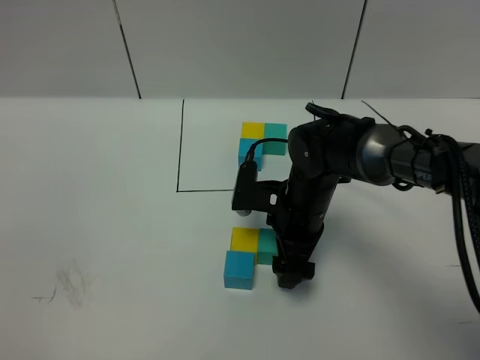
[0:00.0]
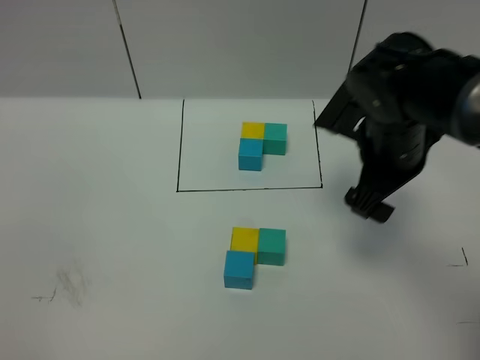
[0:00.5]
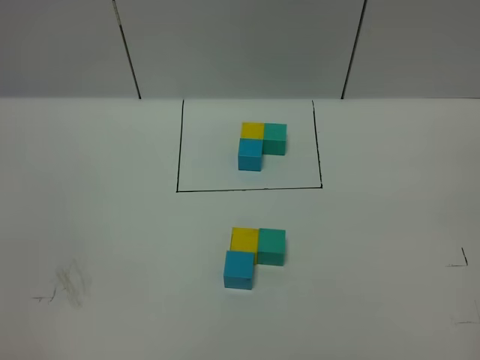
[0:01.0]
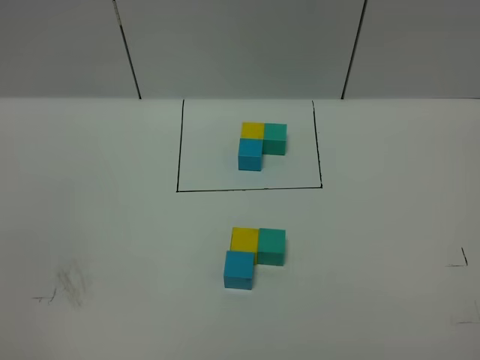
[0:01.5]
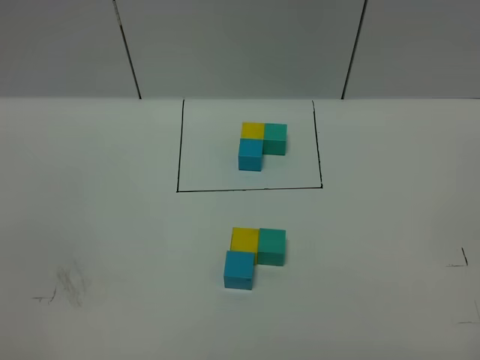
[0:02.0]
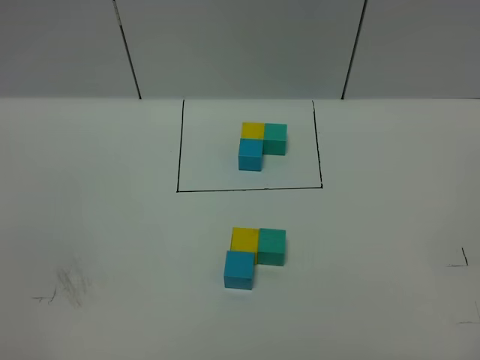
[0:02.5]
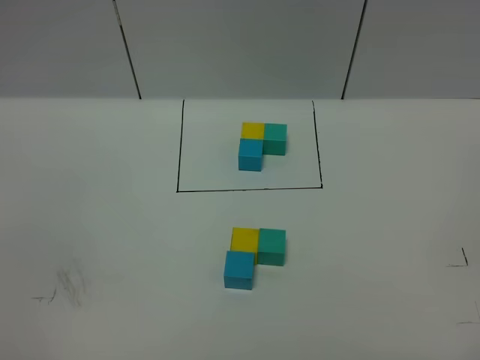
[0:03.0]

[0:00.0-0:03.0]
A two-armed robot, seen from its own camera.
Task of the whole recording: According to the building block template in front, assemble the scattered blocks together.
0:00.0 to 0:01.5: The right gripper is displaced backward, upward and to the right by roughly 50 cm.

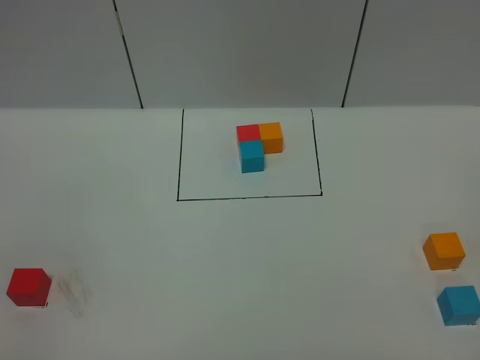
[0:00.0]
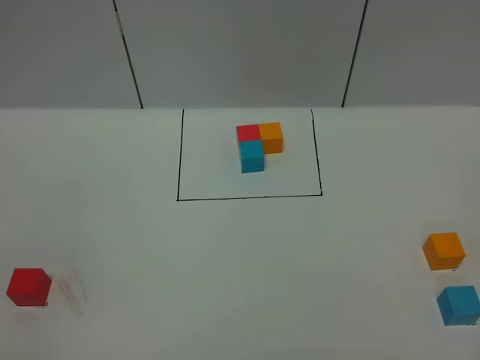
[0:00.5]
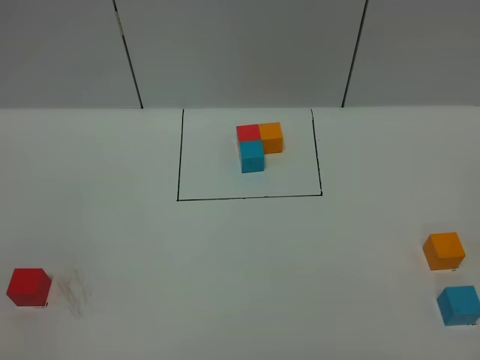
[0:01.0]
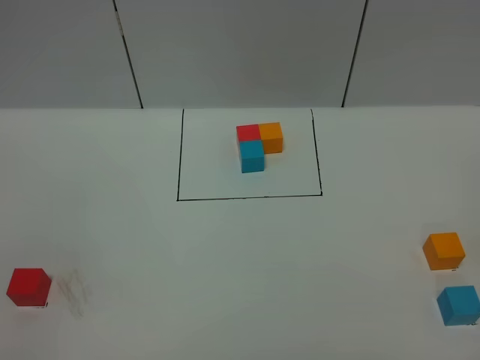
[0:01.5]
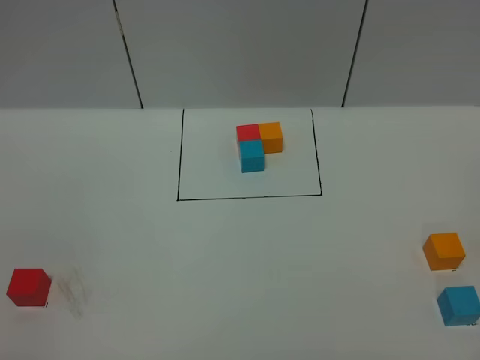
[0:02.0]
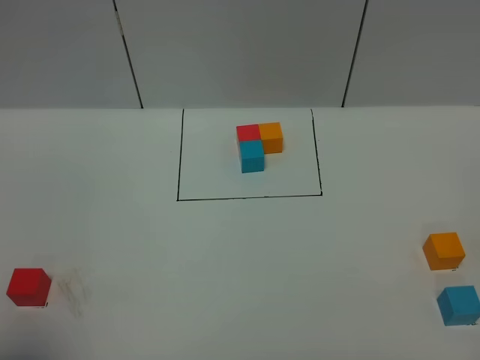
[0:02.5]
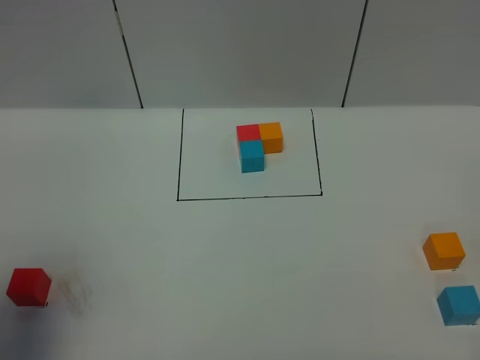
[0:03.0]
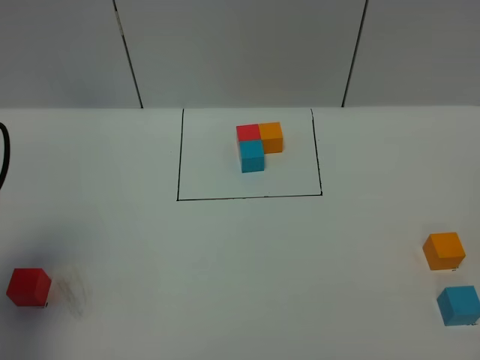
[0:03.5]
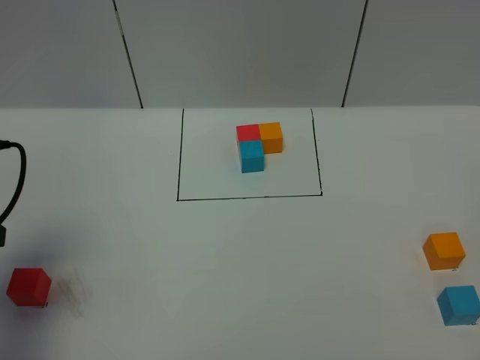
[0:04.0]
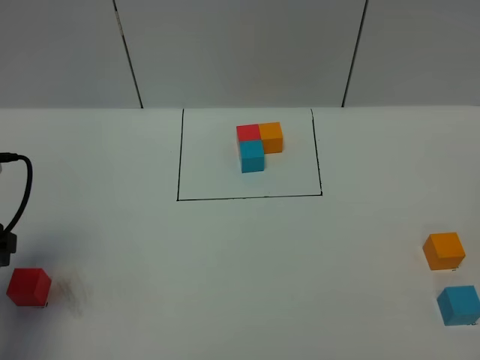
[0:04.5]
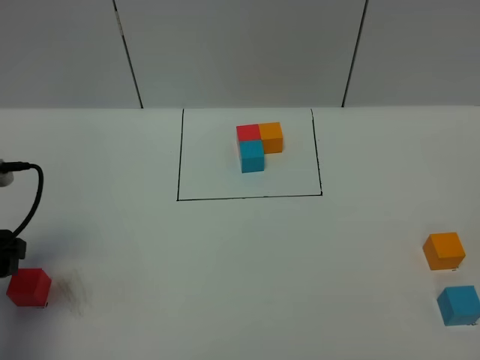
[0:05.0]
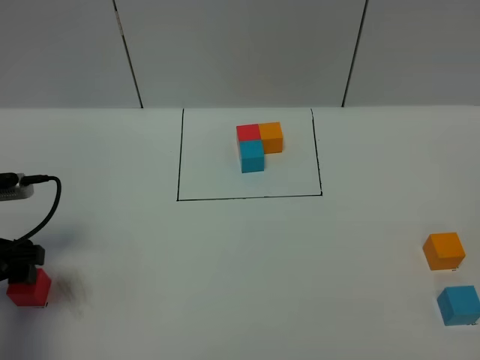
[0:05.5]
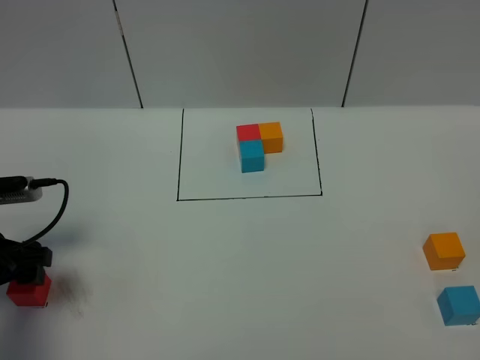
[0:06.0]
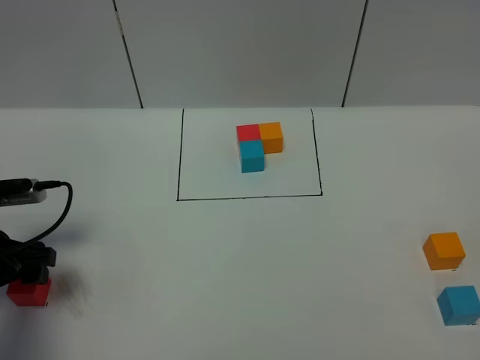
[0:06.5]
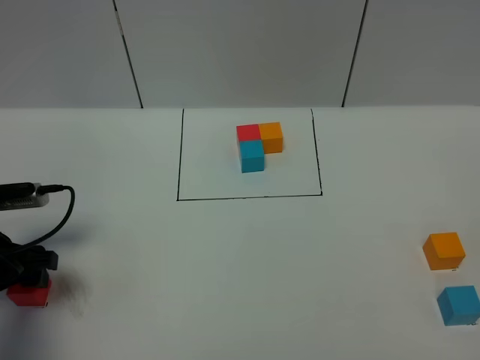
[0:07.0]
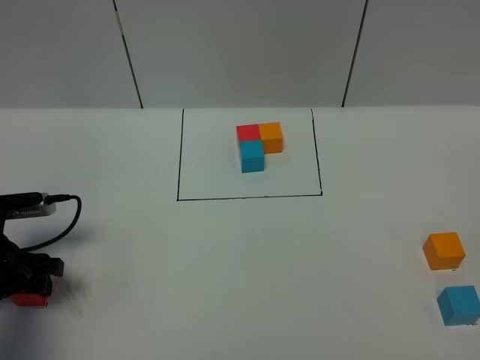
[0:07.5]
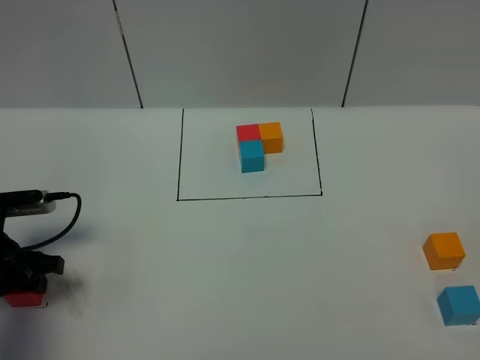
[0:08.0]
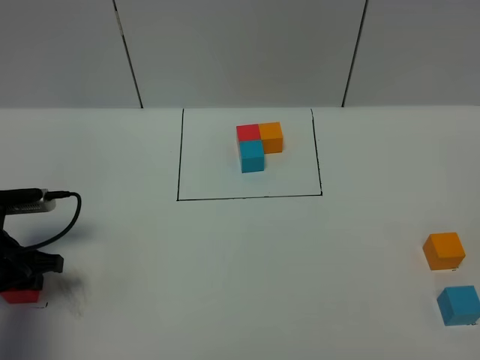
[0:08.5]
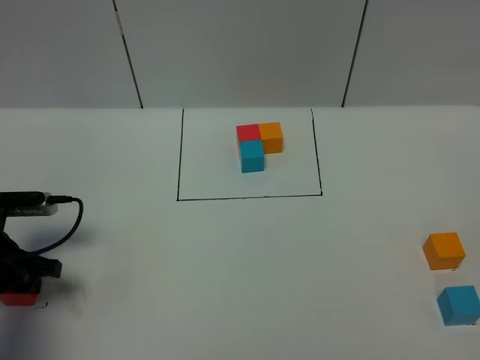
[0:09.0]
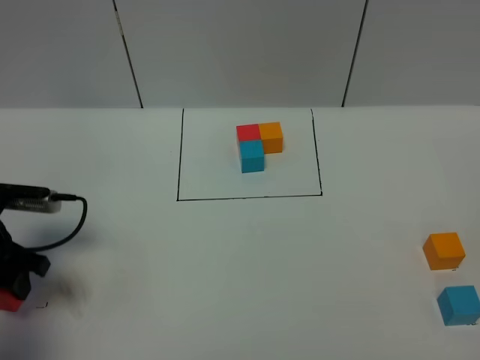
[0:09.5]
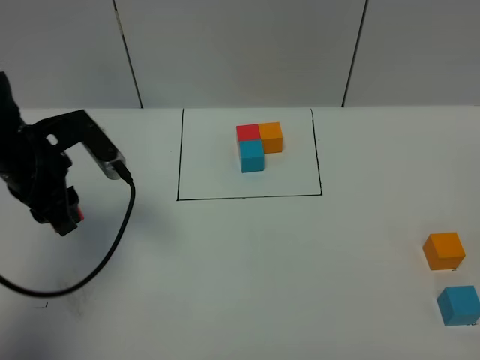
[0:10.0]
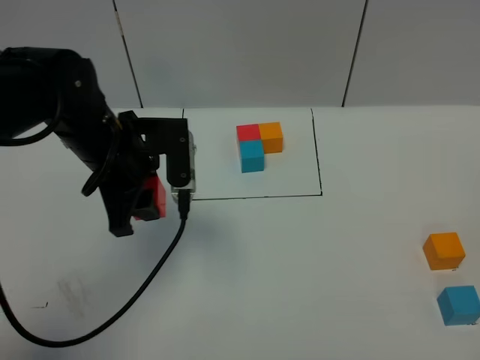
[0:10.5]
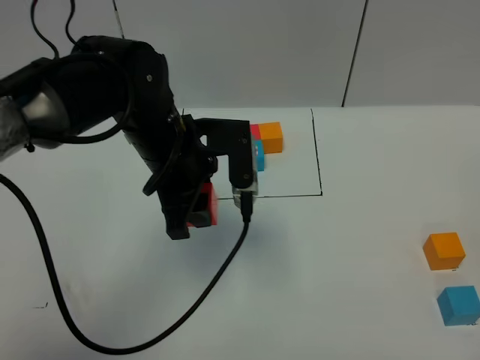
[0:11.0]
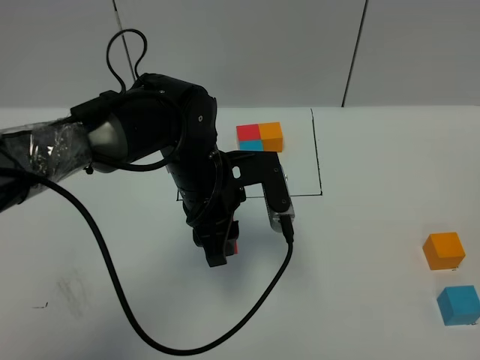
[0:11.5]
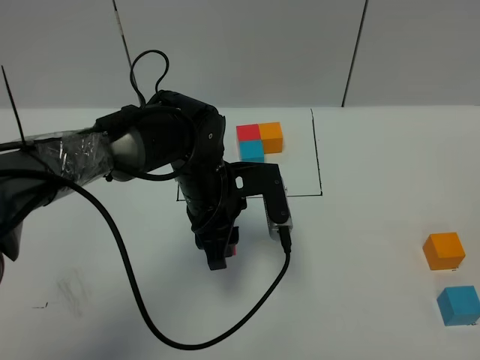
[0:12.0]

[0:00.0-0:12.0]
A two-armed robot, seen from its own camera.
Task of the whole recording: According to the building block template in front, assemble the scattered blocks together.
0:02.0 to 0:04.0: The left gripper travels forward by roughly 25 cm.
0:04.0 to 0:06.0: The left gripper shifts some 10 cm downward.
0:06.0 to 0:08.0: The left gripper closes.
0:08.0 to 0:10.0: The left gripper is displaced upward, to the right and forward by approximately 15 cm.
0:10.0 to 0:12.0: The left gripper goes about 20 cm to the right.

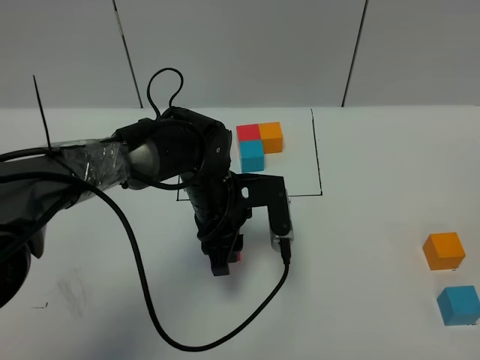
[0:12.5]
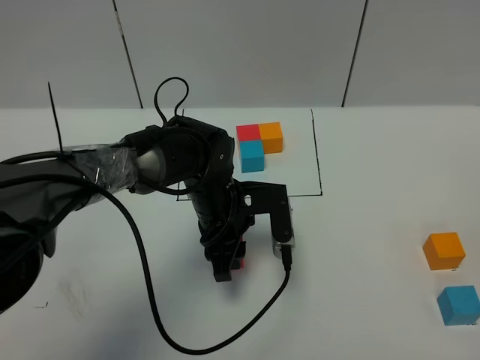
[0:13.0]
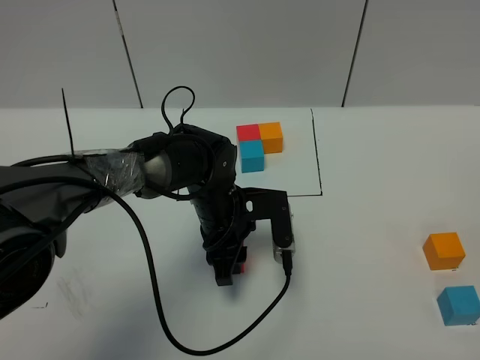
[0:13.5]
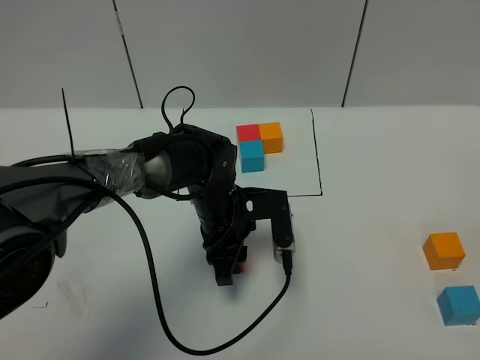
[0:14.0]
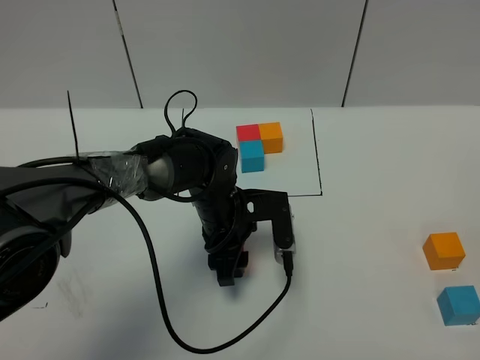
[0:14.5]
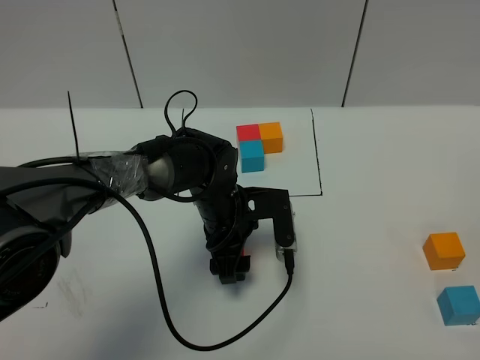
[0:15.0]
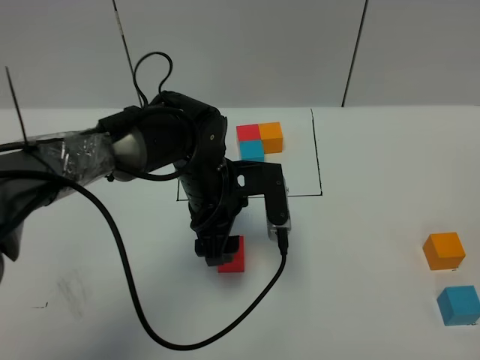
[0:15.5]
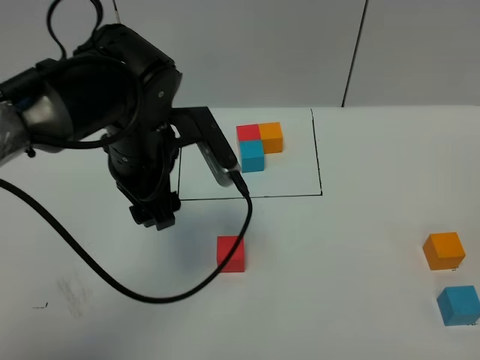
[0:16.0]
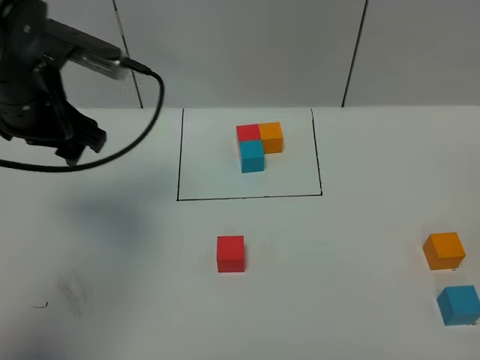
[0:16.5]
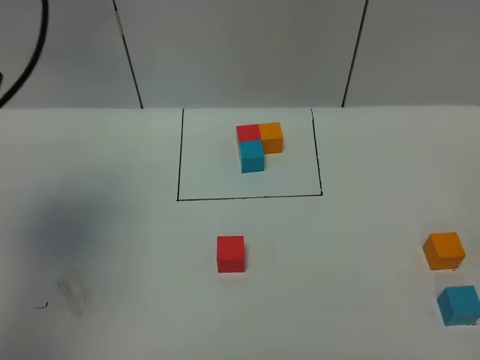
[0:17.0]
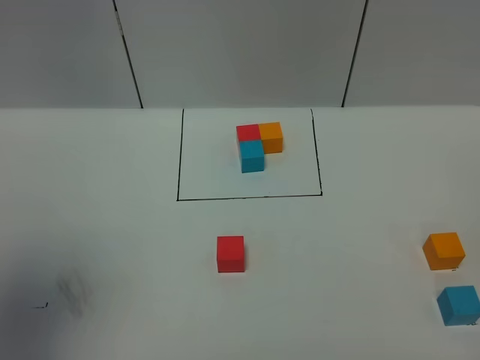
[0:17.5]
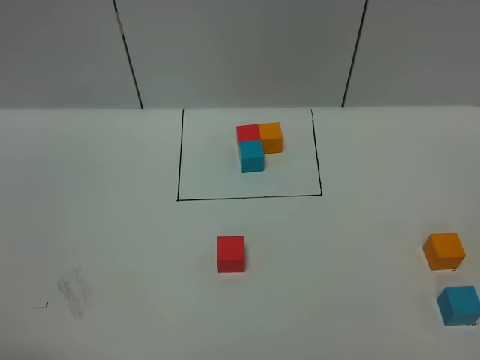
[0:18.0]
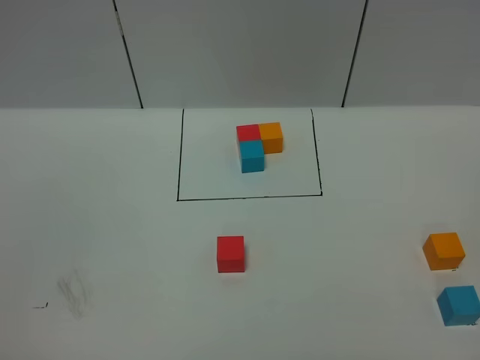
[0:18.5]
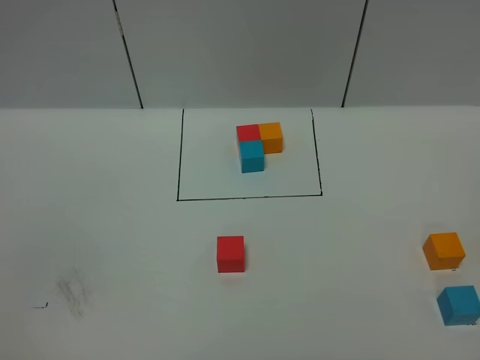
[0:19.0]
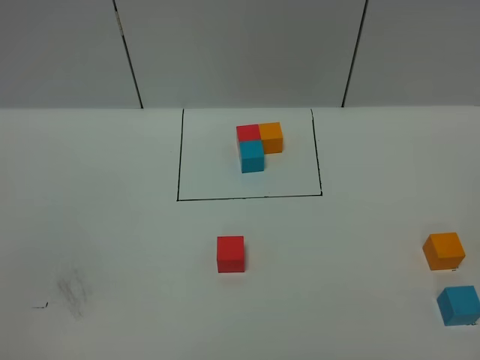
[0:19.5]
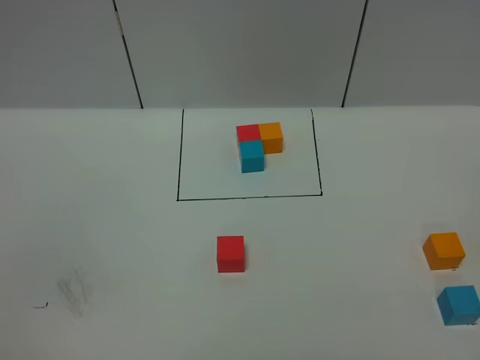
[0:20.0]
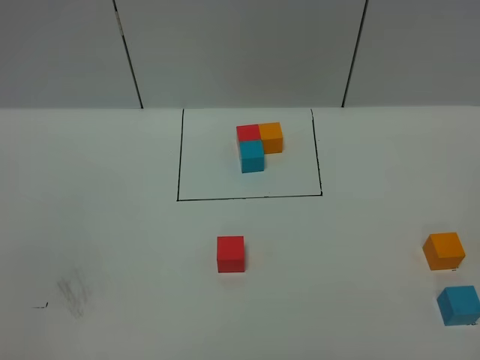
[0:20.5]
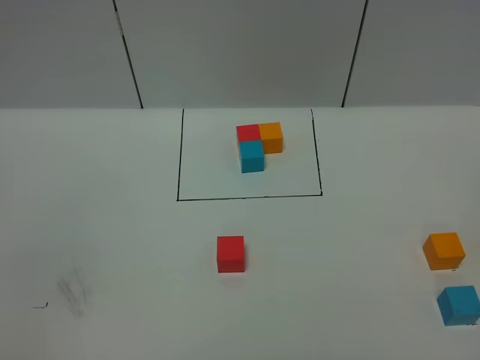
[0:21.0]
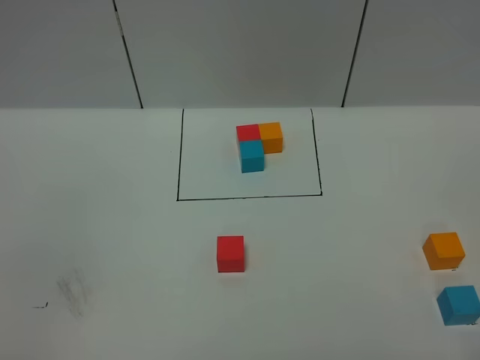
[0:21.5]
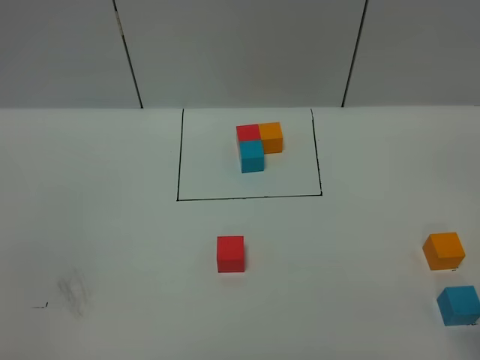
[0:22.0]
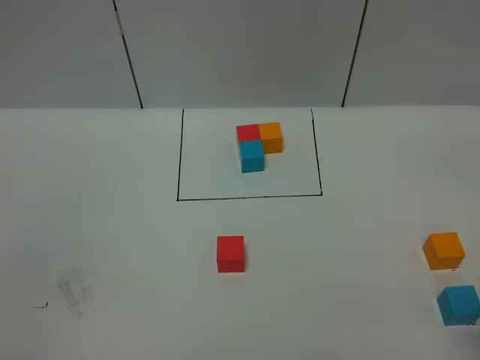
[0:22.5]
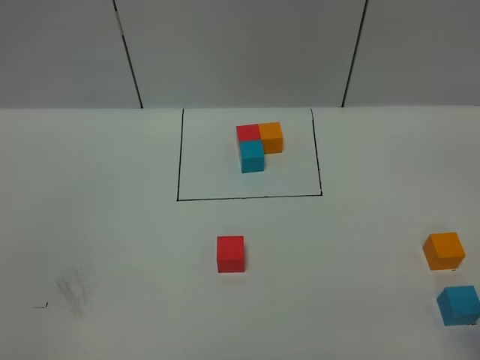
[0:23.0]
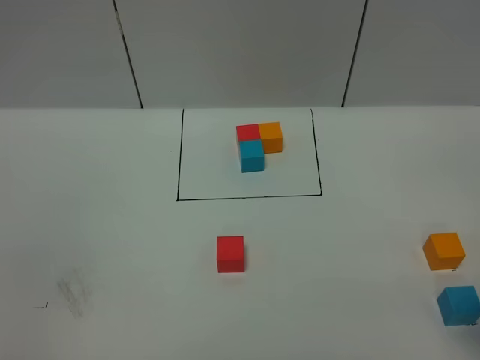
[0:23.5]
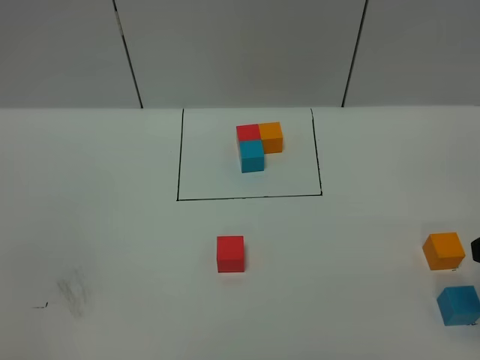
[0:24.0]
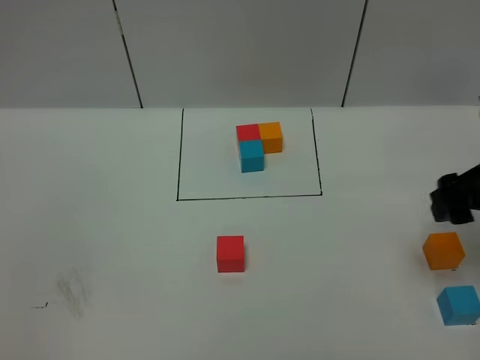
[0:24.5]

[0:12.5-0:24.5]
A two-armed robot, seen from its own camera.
Task of the whole recording: According to the building block template in front, assemble the scattered blocks together.
Step, 0:12.5 to 0:15.5: Put the red cube in the center of the table.
0:12.5 to 0:14.5: The left gripper opens its fingers.
0:14.5 to 0:16.5: The left gripper is displaced upward and to the left by some 30 cm, and opens.
0:16.5 to 0:18.5: The left gripper goes approximately 35 cm backward.
0:22.5 to 0:24.5: The right gripper is displaced forward by some 15 cm.
